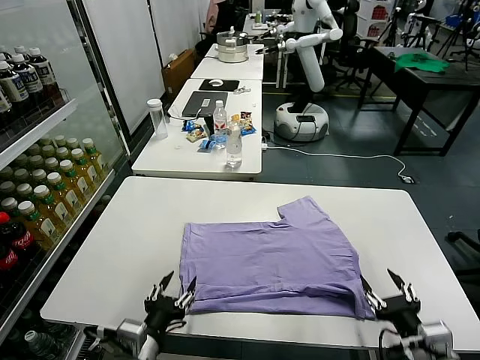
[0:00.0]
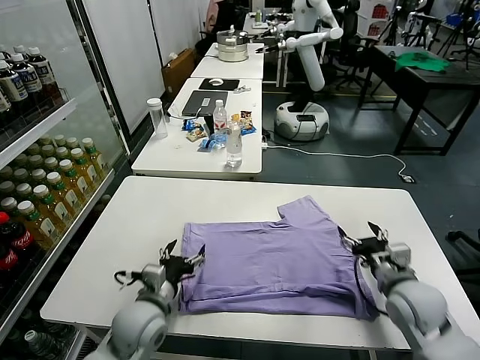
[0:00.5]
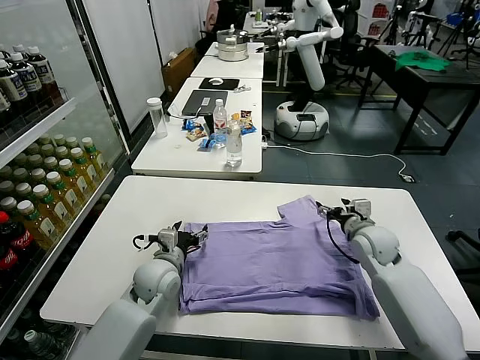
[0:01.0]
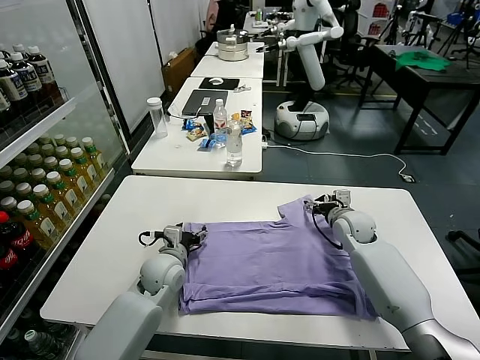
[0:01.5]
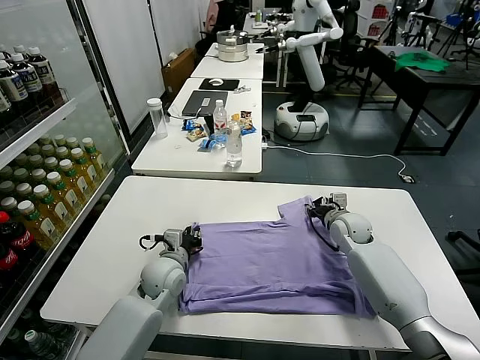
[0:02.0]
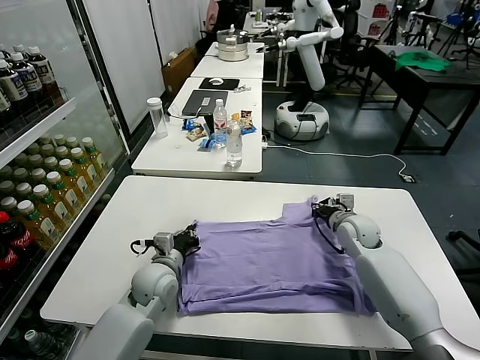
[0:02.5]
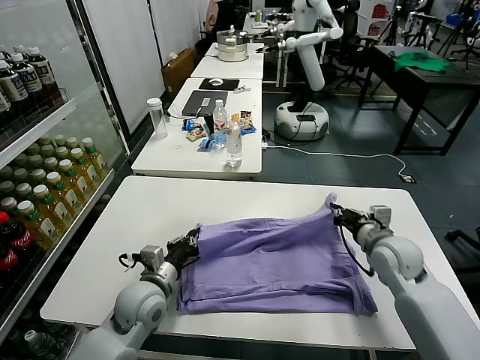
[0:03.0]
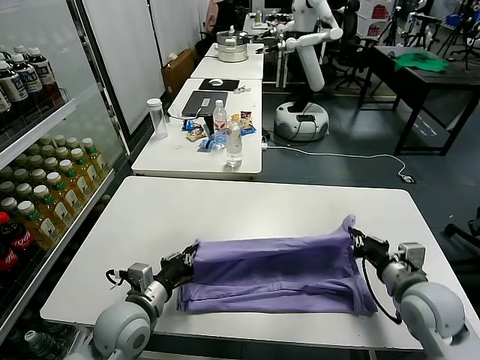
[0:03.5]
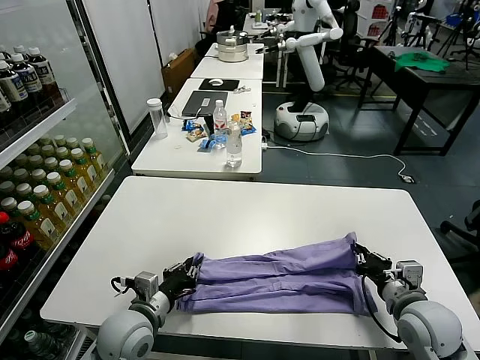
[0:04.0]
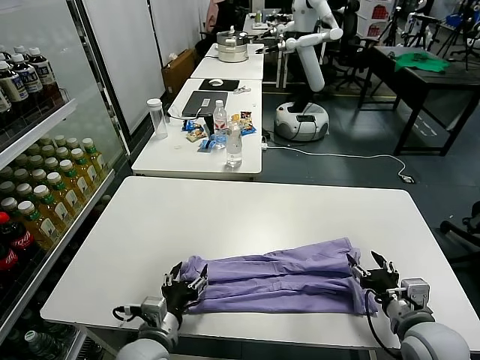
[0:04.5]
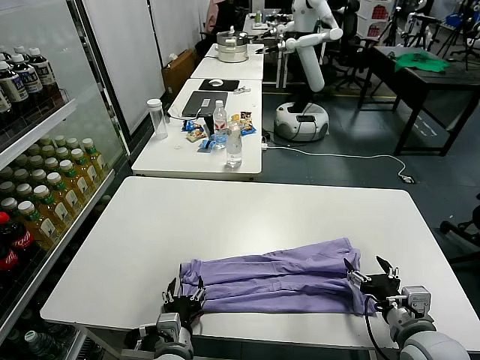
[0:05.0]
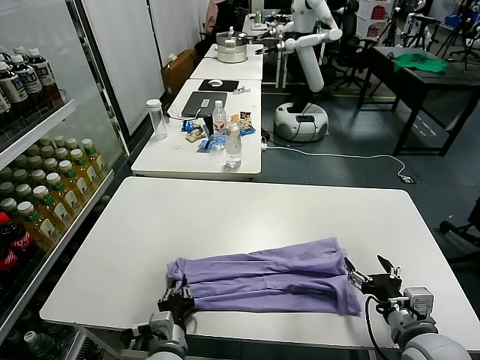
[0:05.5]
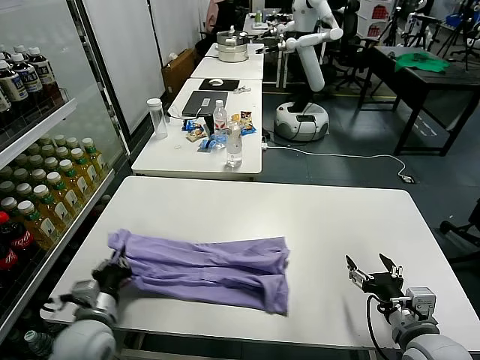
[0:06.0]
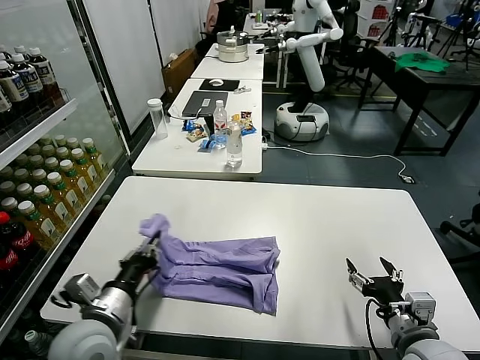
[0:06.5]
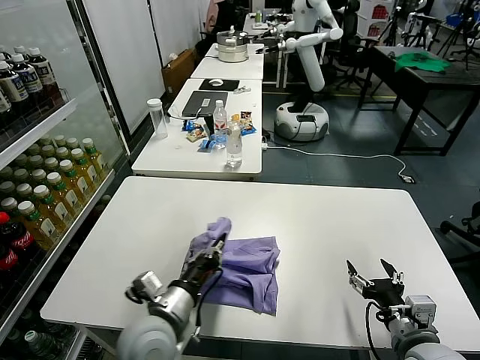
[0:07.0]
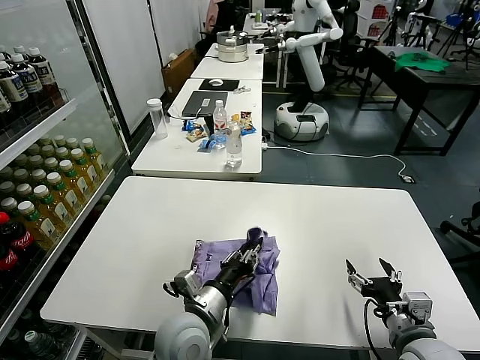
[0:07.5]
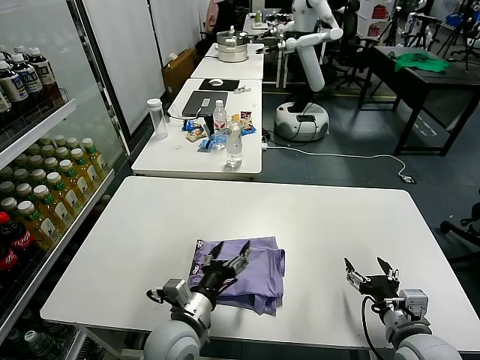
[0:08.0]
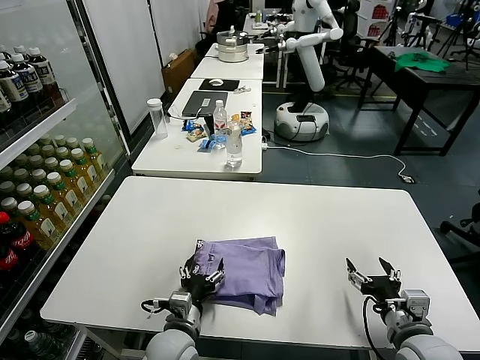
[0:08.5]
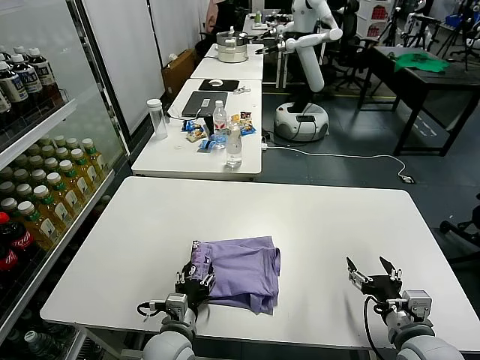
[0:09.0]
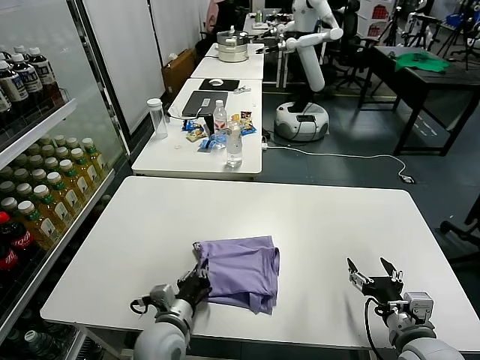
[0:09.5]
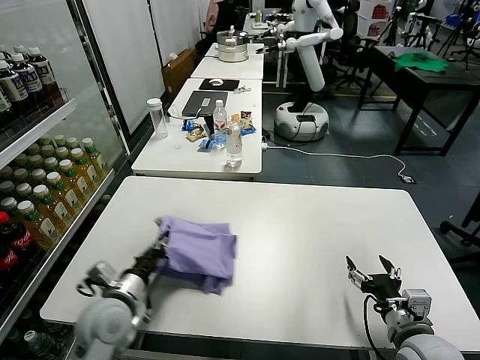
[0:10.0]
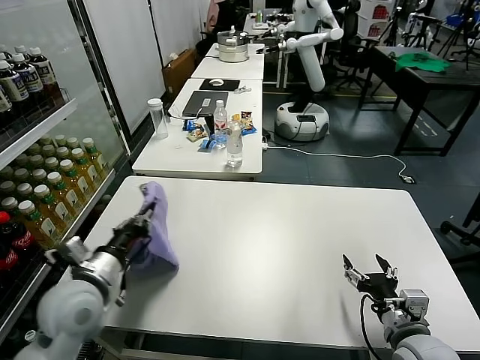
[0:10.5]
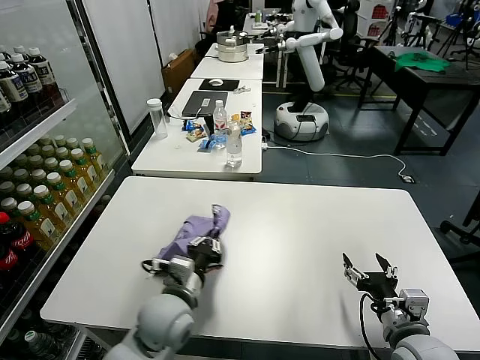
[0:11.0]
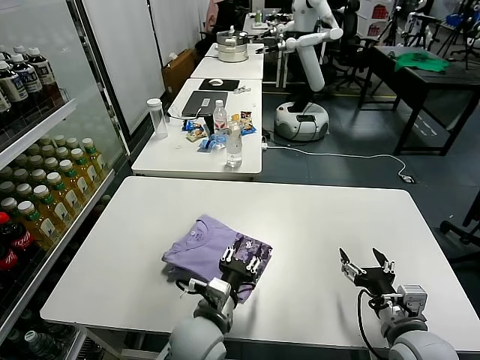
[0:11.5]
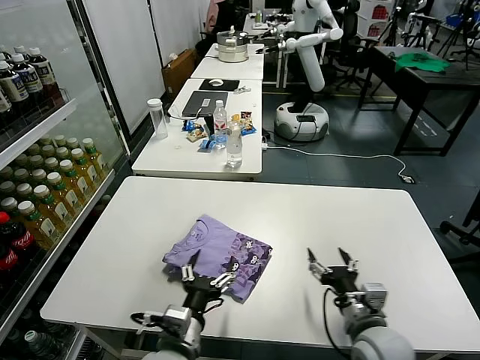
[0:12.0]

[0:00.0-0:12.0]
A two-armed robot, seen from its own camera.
Task of the whole recording: fold and organize the clothes.
Step, 0:00.5 to 0:02.0: use both grippers simultaneously to clamp the upper edge of the clothing fabric.
Step, 0:02.5 to 0:04.0: use both grippers to drag the upper edge of the fabric backward and fold it over the lower edge.
Step, 0:04.5 to 0:05.5: use the left gripper to clamp the left edge of the fabric.
Step, 0:06.0 to 0:07.5: use the left gripper to drag the left edge of the fabric to the left and folds it over the right edge.
Step, 0:08.0 to 0:11.5: Flip the folded clothes over with left gripper.
0:00.0 to 0:02.0: The left gripper is displaced forward by approximately 25 cm, and closes up. Meanwhile the right gripper shifts some 35 cm forward, and closes.
0:02.0 to 0:04.0: The left gripper is displaced backward by some 15 cm, while the right gripper shifts approximately 25 cm backward.
0:04.0 to 0:06.0: The right gripper is displaced backward by about 5 cm, and opens its fingers, while the left gripper goes approximately 5 cm to the left, and opens, then closes once more.
0:06.0 to 0:08.0: The left gripper travels to the right by approximately 15 cm, and opens up.
0:08.0 to 0:10.0: The left gripper shifts approximately 15 cm to the left, and closes its fingers.
0:10.0 to 0:12.0: The left gripper heads to the right and backward, covering approximately 15 cm, and opens up. Meanwhile the right gripper is displaced to the left by approximately 5 cm.

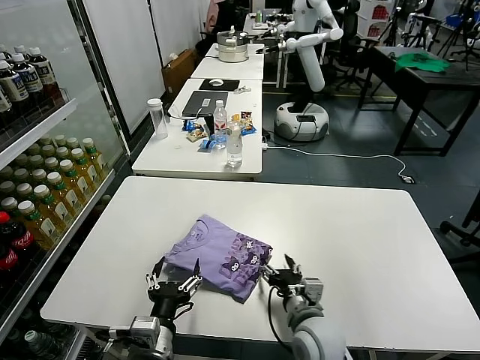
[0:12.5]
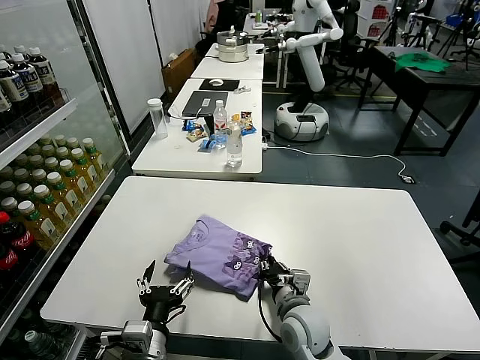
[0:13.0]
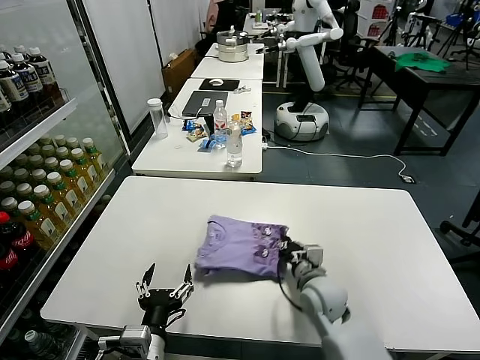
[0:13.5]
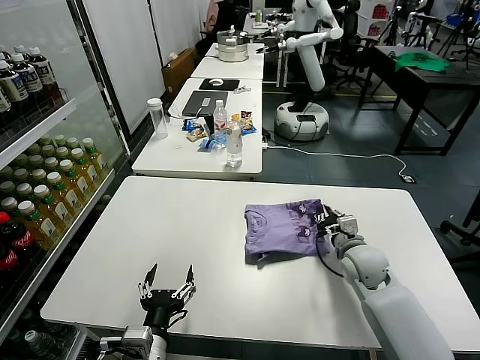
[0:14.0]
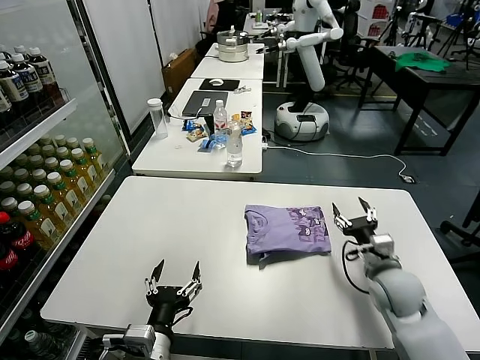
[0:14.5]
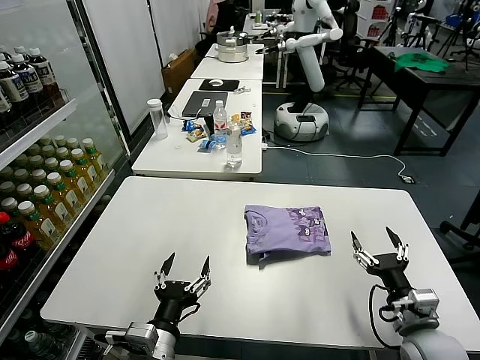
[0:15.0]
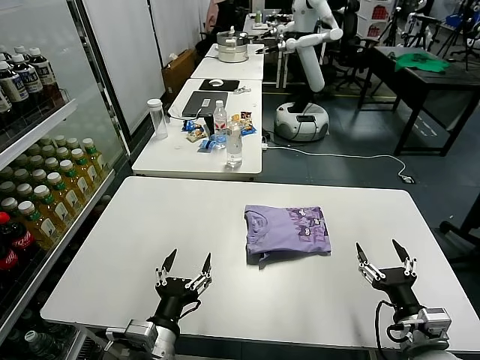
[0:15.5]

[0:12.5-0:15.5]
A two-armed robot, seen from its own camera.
Task of the whole recording: fold and organize the clothes.
Step, 0:12.5 to 0:14.0: Drag the clothes to the center of the table.
0:12.5 to 0:14.0: The right gripper heads forward and to the right, covering roughly 20 cm, and closes its fingers.
0:14.0 to 0:15.5: The right gripper goes roughly 20 cm backward, and opens up.

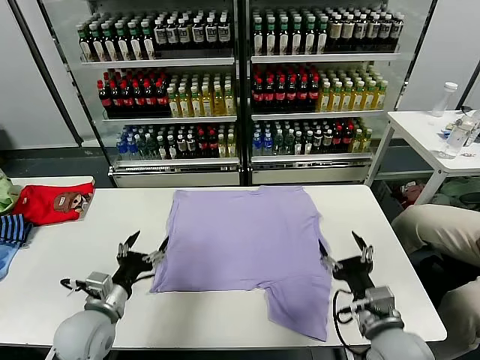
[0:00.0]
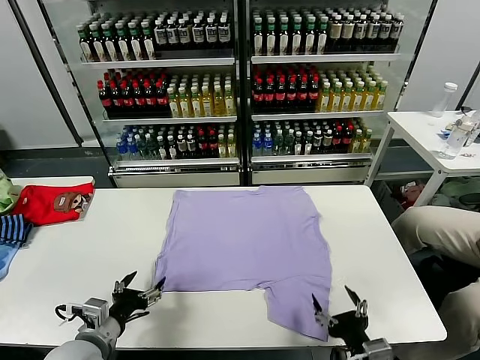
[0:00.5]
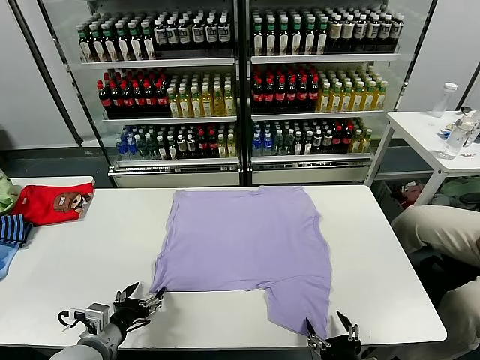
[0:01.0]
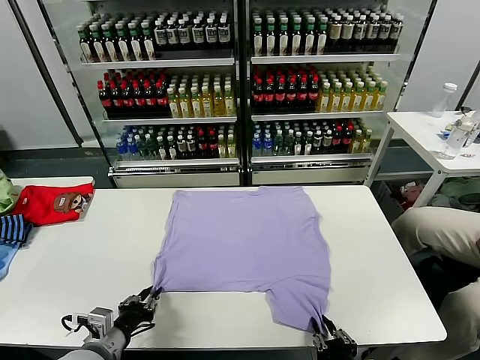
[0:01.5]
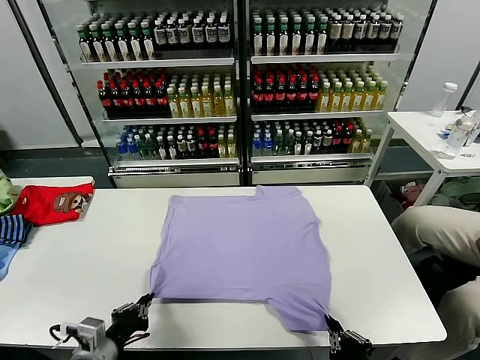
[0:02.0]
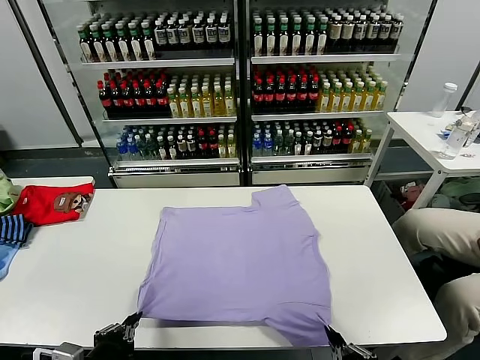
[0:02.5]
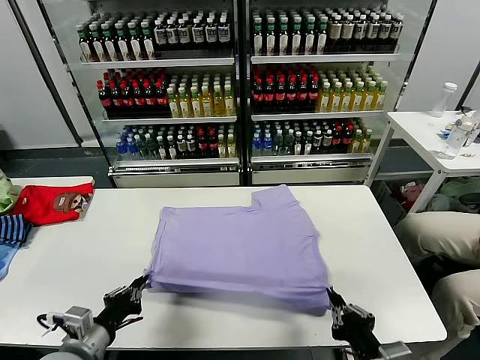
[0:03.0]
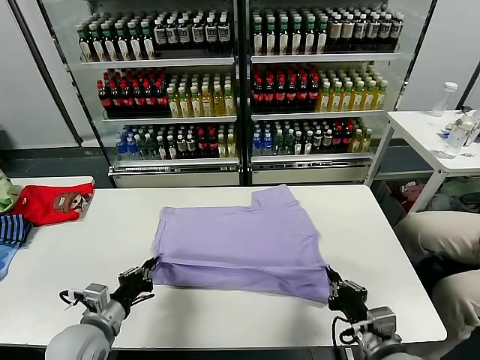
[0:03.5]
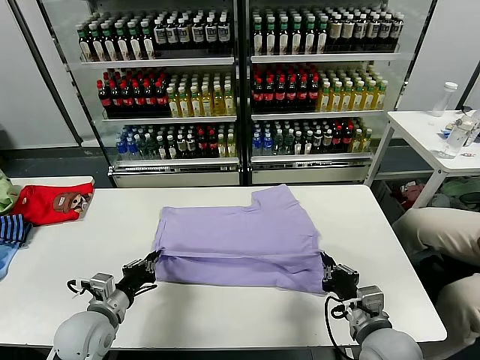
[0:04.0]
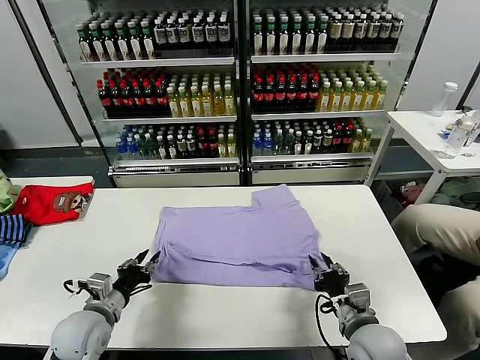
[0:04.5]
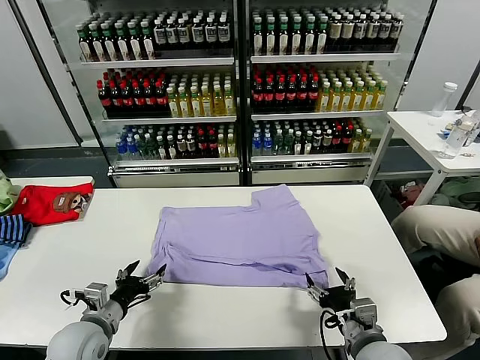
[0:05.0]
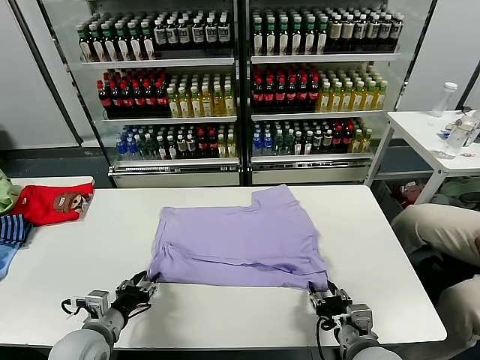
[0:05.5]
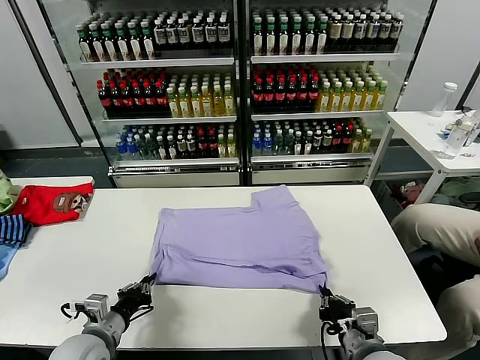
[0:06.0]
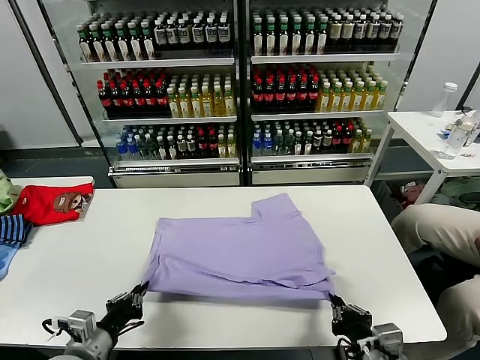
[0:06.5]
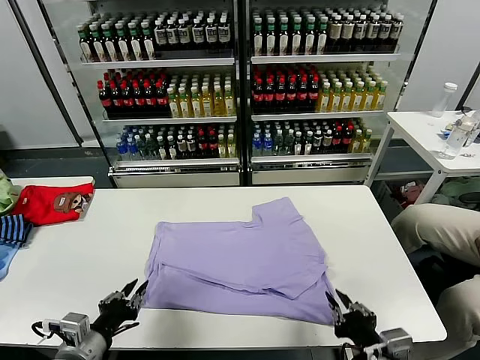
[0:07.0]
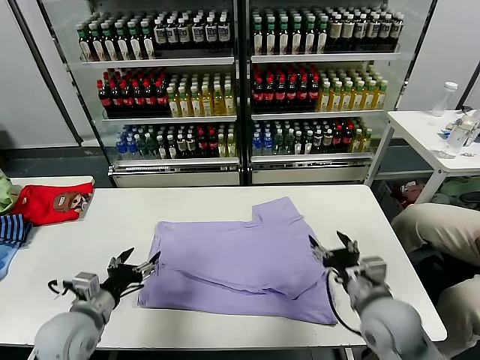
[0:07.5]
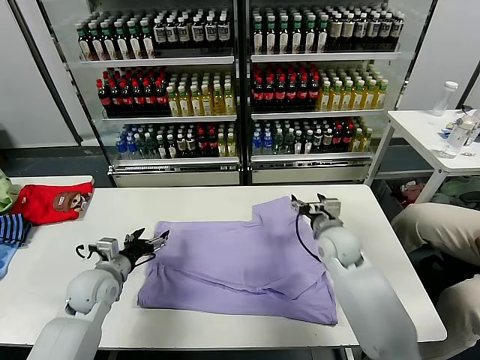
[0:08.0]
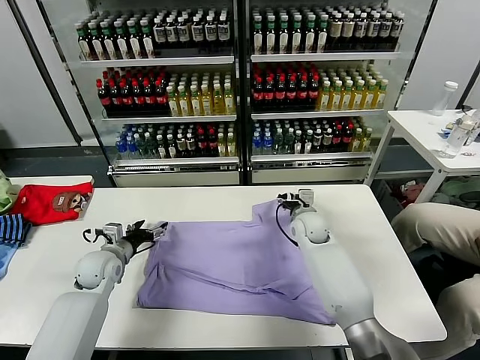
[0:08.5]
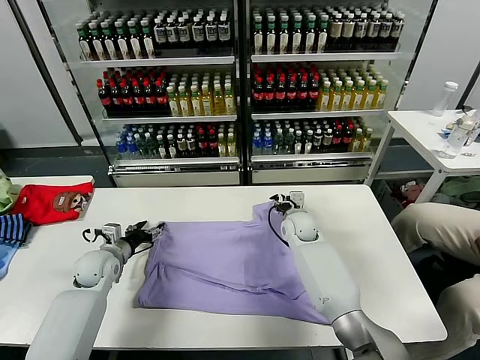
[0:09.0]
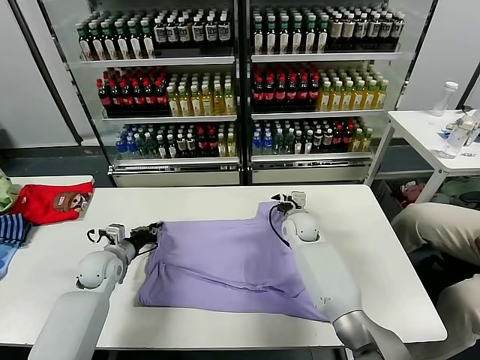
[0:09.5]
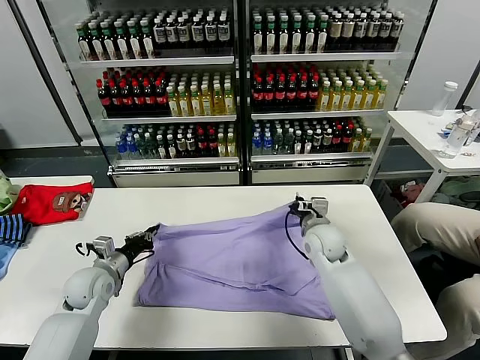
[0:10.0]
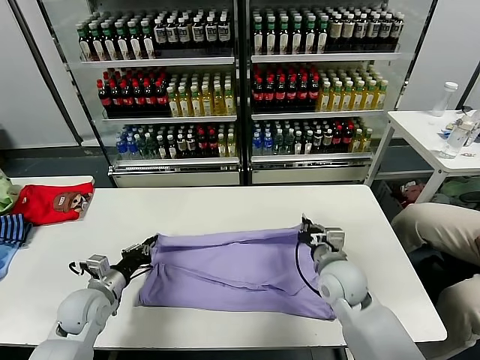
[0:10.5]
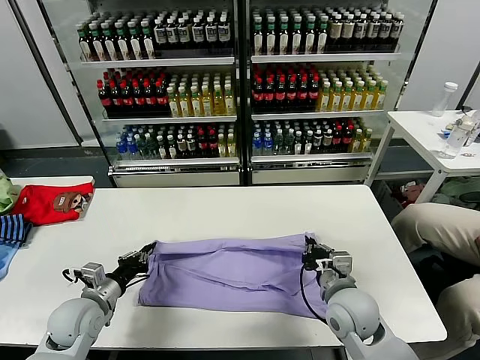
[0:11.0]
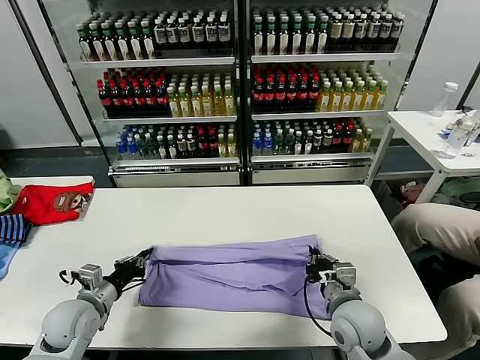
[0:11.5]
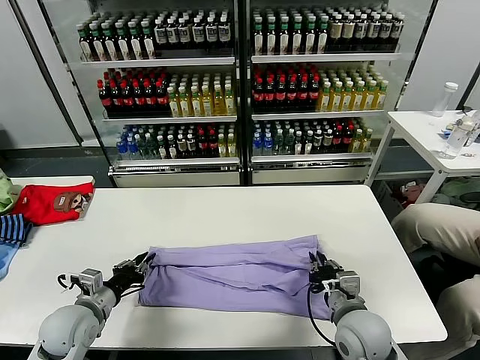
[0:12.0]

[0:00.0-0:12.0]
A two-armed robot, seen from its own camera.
Task of the whole recording: fold and organize the clothes.
Step, 0:00.0 to 0:01.5: use both grippers simultaneously to clamp the lower edge of the clothing fabric.
Step, 0:02.0 to 0:05.0: use both grippers to drag the lower edge of the fabric forward and fold it over the upper edge.
Step, 0:05.5 to 0:07.0: Drag the clothes downward with both gripper.
Step, 0:07.5 to 0:09.5: use both grippers simultaneously to clamp the upper edge of the clothing fabric.
Step, 0:10.0 to 0:12.0: use both grippers to drag the upper edge of the fabric backward and fold it over the lower edge.
0:02.0 to 0:04.0: The left gripper shifts approximately 10 cm forward. Meanwhile the right gripper travels forward by approximately 15 cm.
0:04.0 to 0:06.0: The right gripper opens and closes again. The left gripper opens and closes again.
0:06.0 to 0:08.0: The right gripper is displaced forward by roughly 30 cm, and opens up; the left gripper travels forward by roughly 15 cm, and opens its fingers.
0:08.0 to 0:10.0: The left gripper closes. Meanwhile the right gripper closes.
0:10.0 to 0:12.0: The left gripper goes approximately 10 cm backward, while the right gripper heads backward, covering some 20 cm, and opens its fingers.
